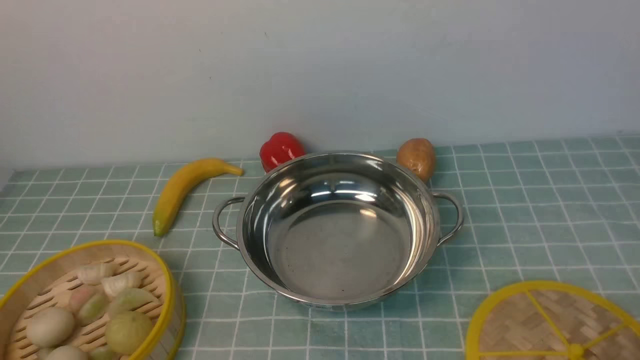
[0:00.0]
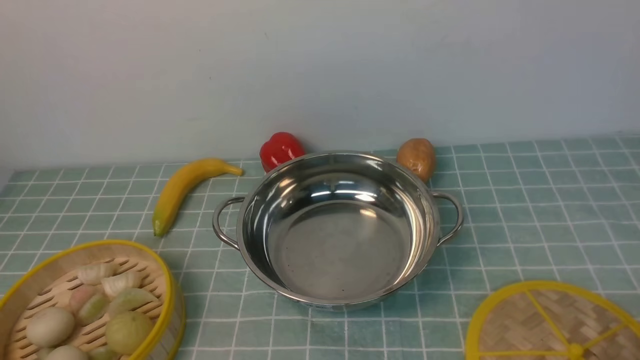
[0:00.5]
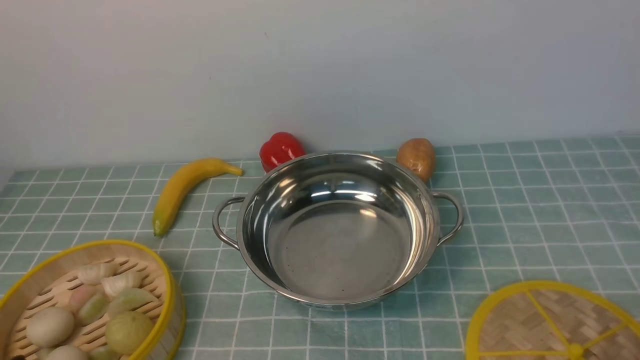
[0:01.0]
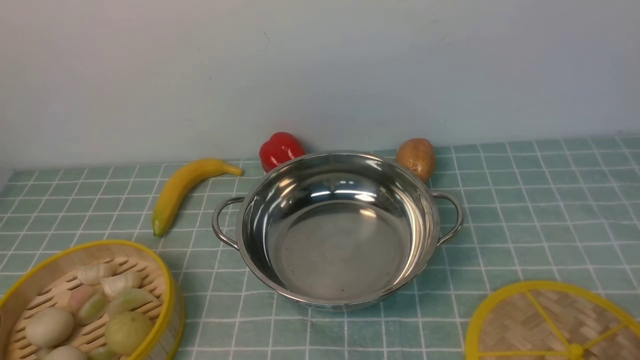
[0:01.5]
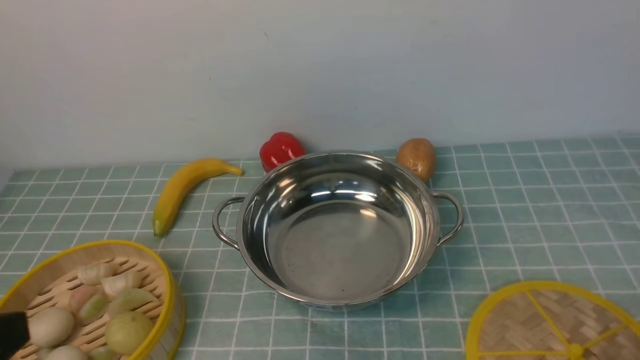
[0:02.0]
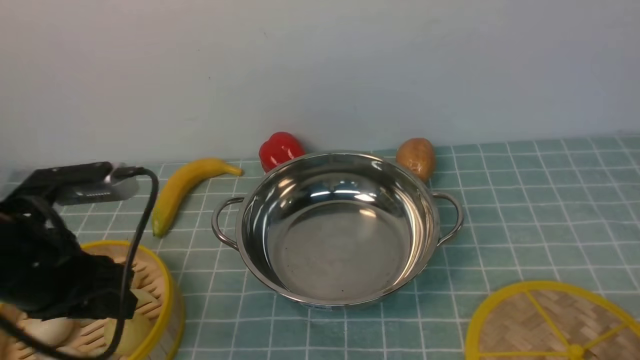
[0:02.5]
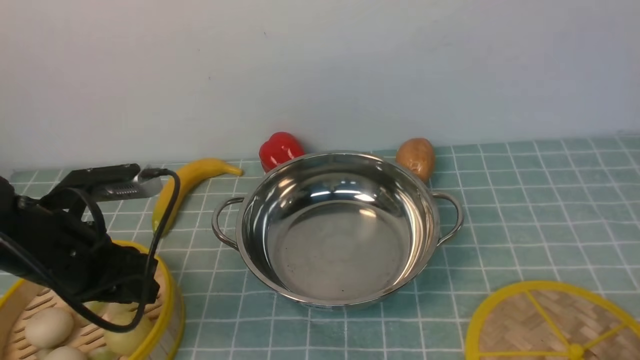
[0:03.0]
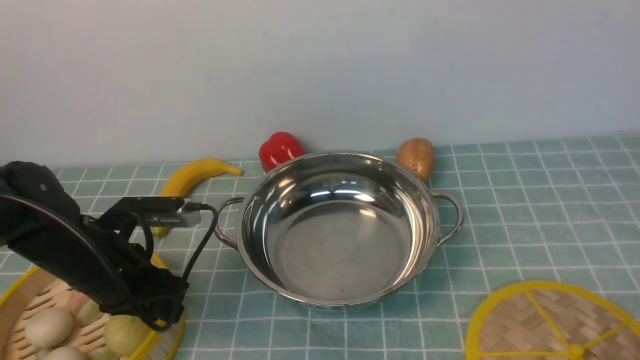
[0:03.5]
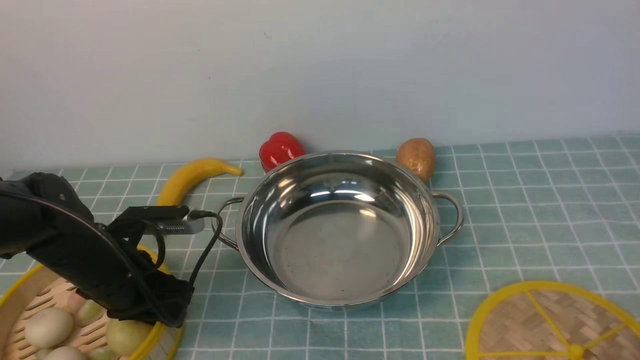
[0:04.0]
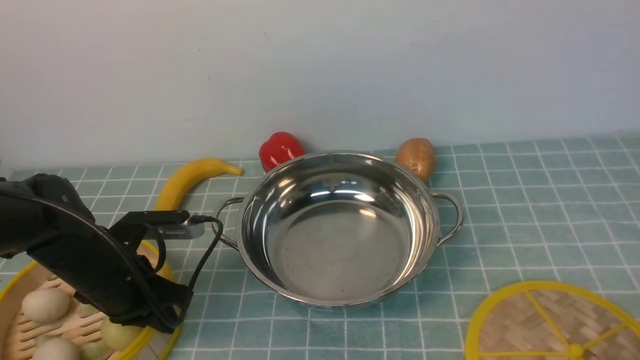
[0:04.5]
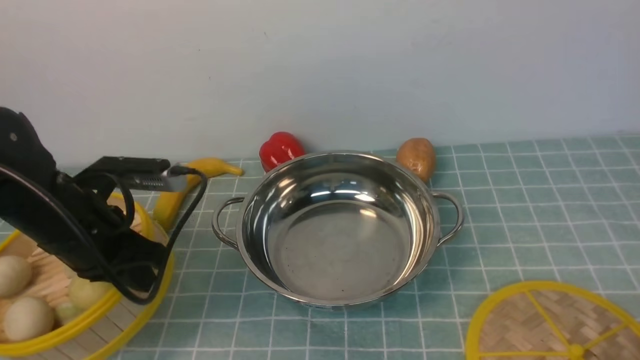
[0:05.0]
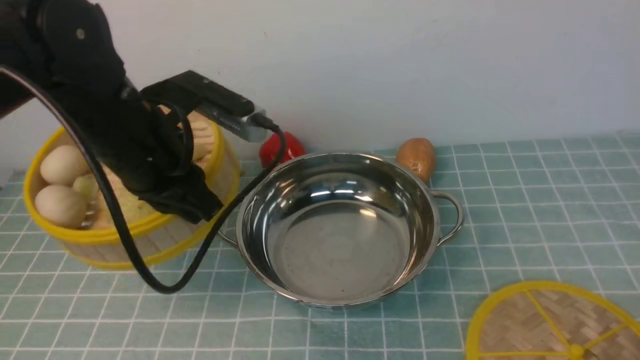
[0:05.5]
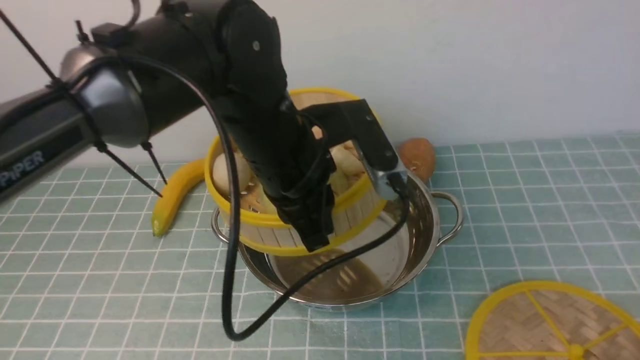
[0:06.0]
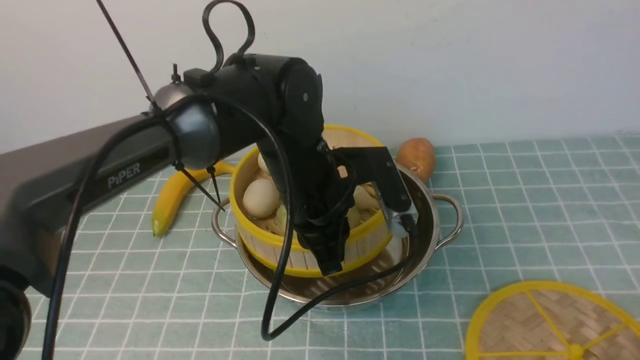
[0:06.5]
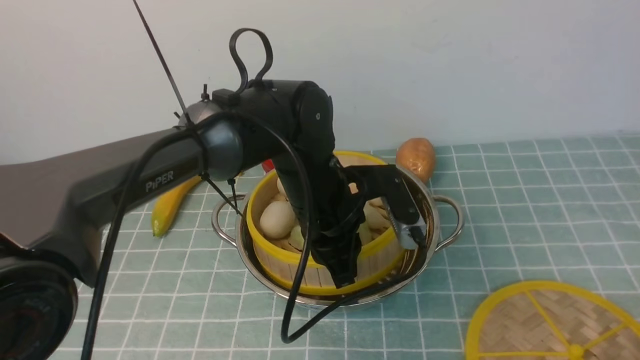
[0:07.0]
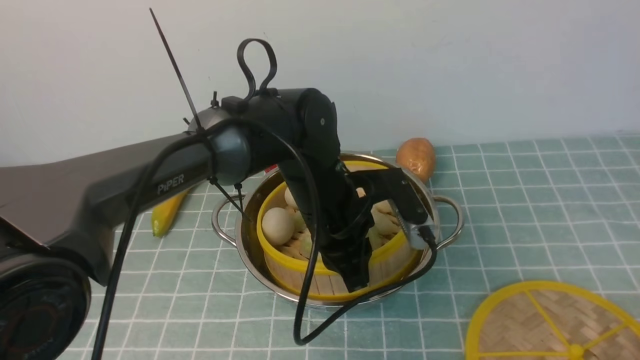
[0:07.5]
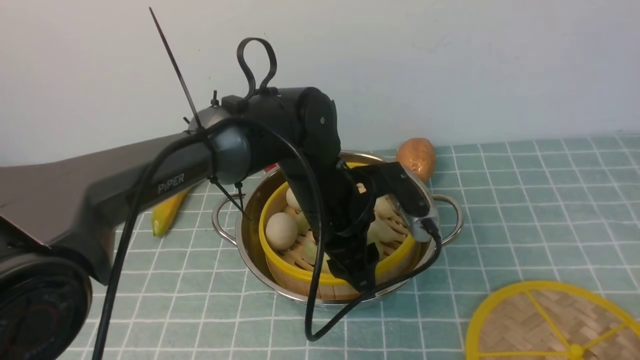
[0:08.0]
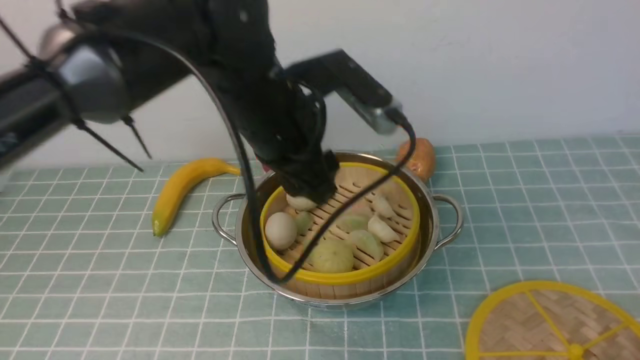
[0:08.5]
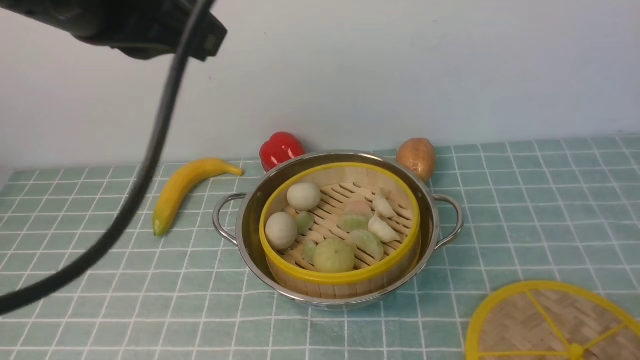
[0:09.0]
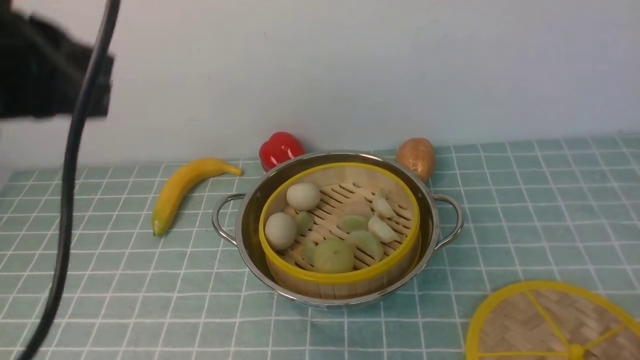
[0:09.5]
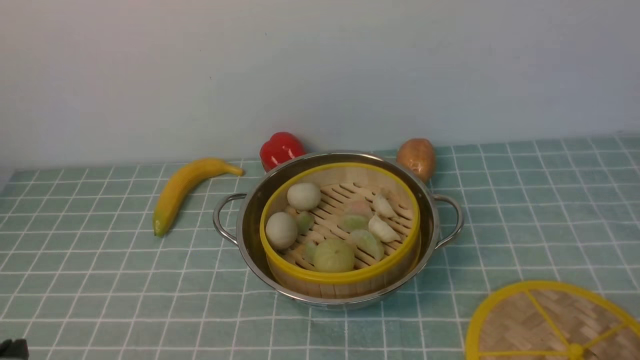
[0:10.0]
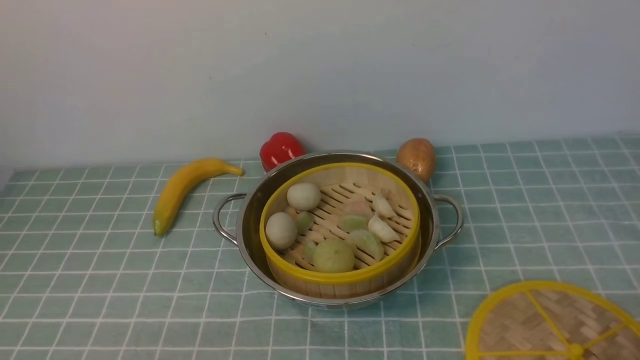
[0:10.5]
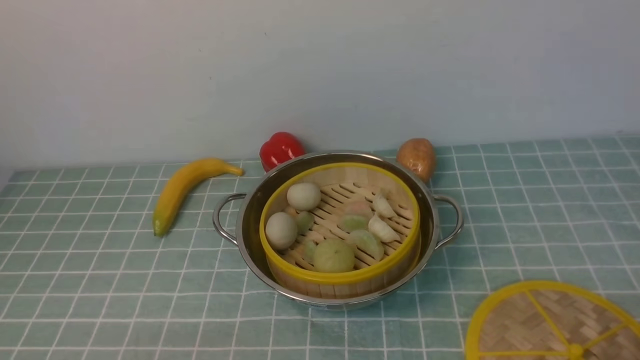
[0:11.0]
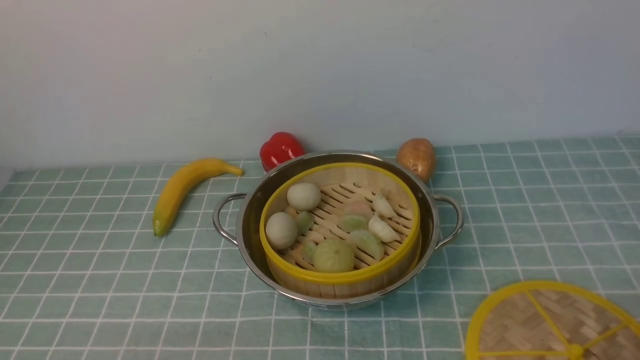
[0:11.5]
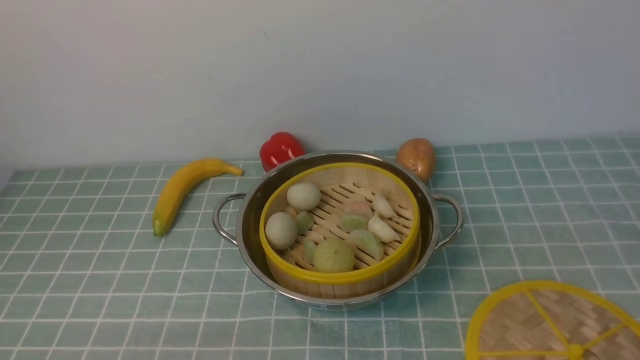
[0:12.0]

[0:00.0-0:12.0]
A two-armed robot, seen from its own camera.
Task of the whole recording: place the steamer in the pot on the blue tablecloth, and put the lid on the steamer.
Step, 0:00.0 to 0:05.0: use the left arm to lift the steamer closest to it.
Step, 0:05.5 to 0:08.5: use the left arm to put the steamer into the iron steamer pot in the middle.
0:02.0 to 0:04.0: The left gripper moves forward and downward, roughly 25 cm.
0:04.0 to 0:06.0: The left gripper heads to the right and upward, covering roughly 25 cm, and closes its fingers.
0:06.0 to 0:08.0: The left gripper moves downward, some 10 cm, and opens.
0:08.0 to 0:10.0: The left gripper shifts approximately 35 cm backward and to the left, and closes its fingers.

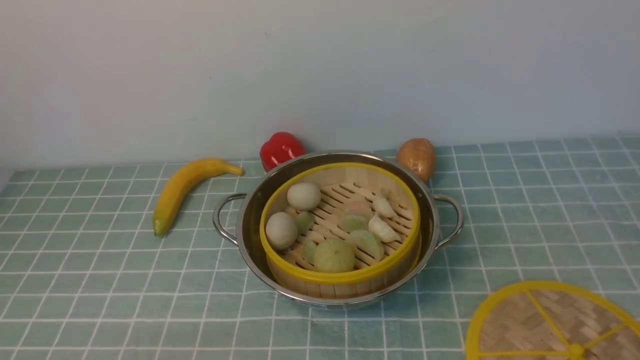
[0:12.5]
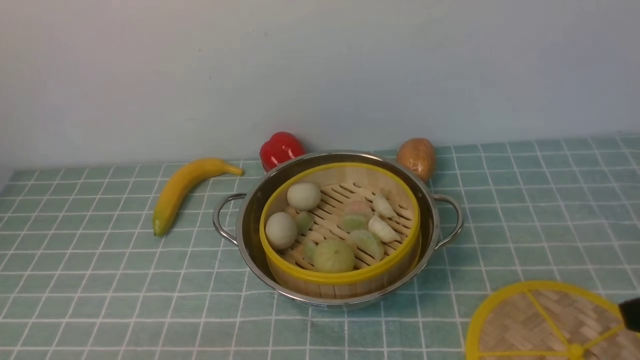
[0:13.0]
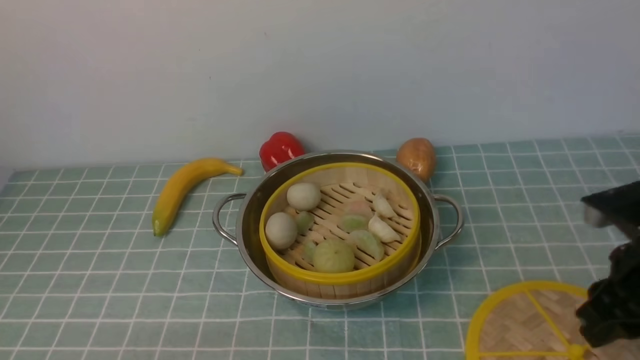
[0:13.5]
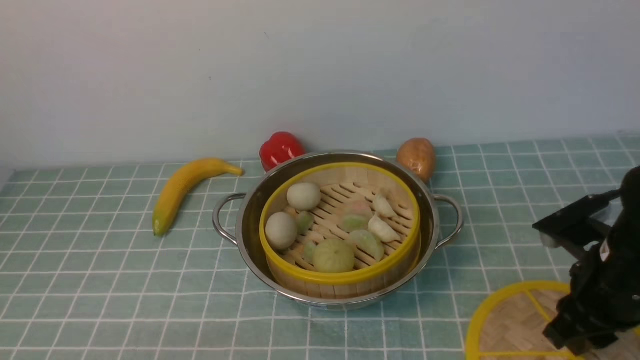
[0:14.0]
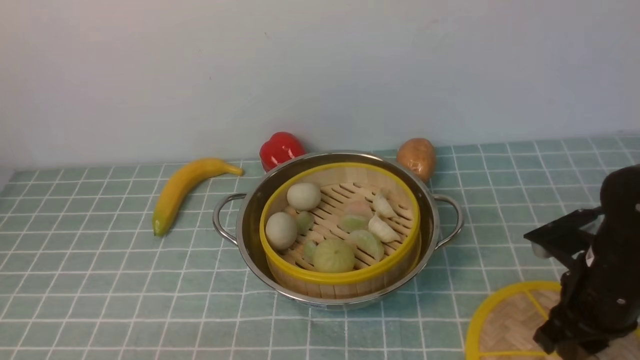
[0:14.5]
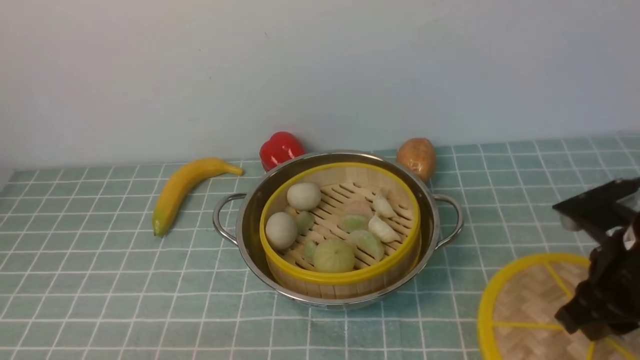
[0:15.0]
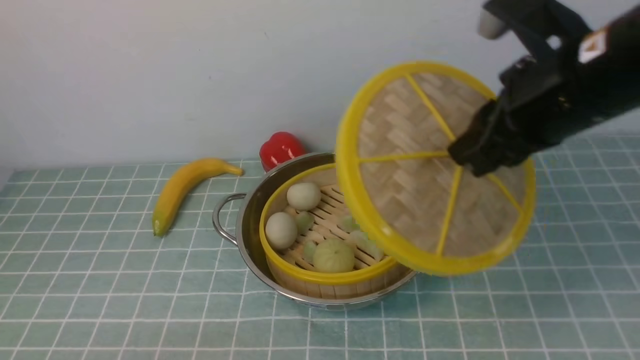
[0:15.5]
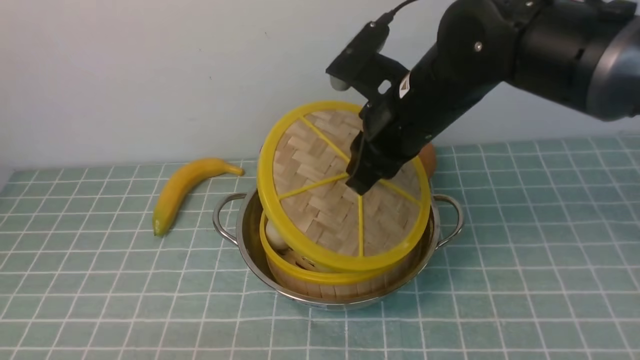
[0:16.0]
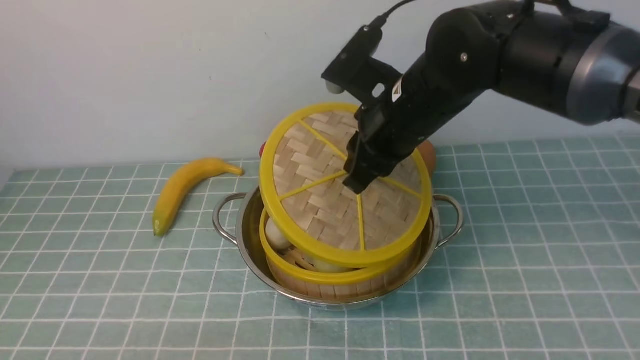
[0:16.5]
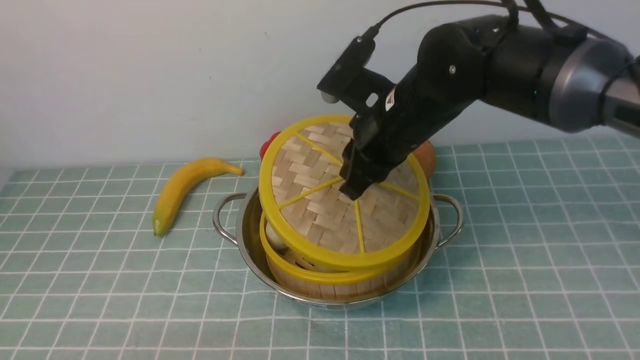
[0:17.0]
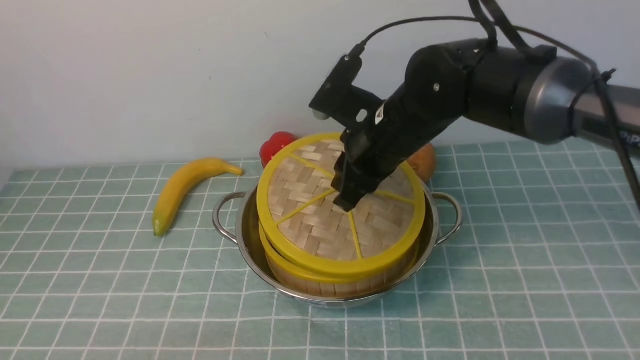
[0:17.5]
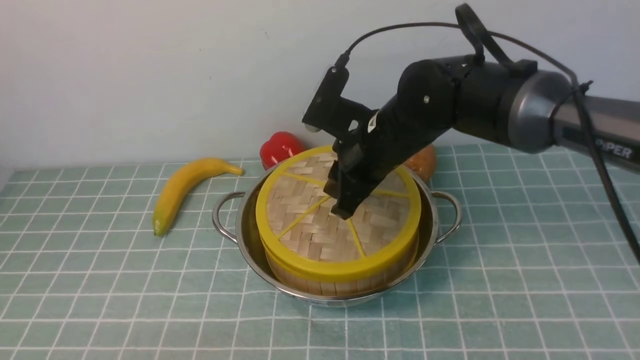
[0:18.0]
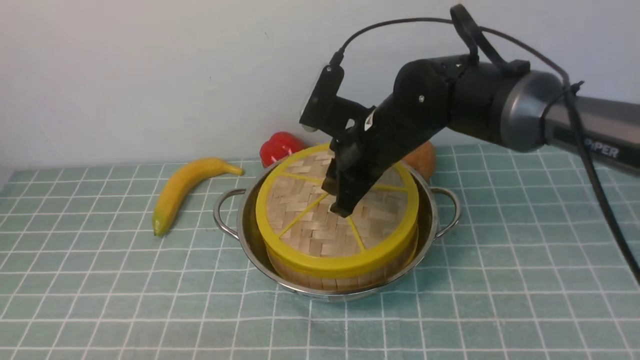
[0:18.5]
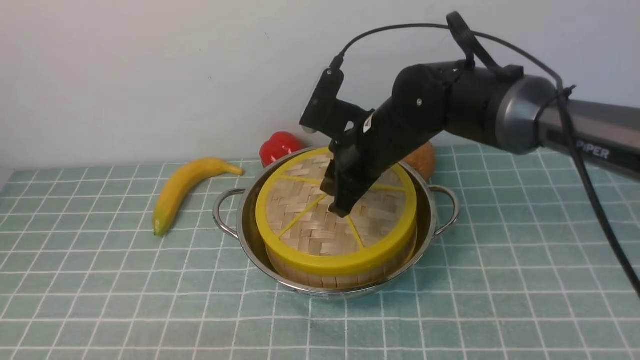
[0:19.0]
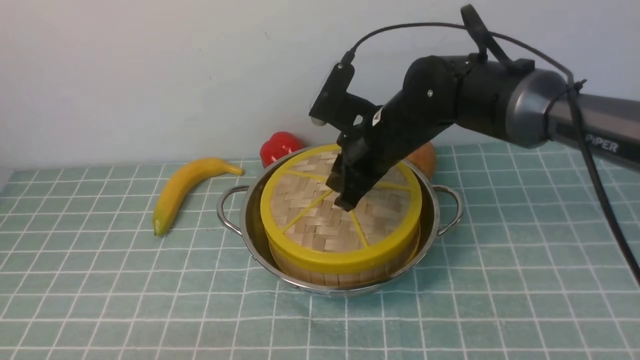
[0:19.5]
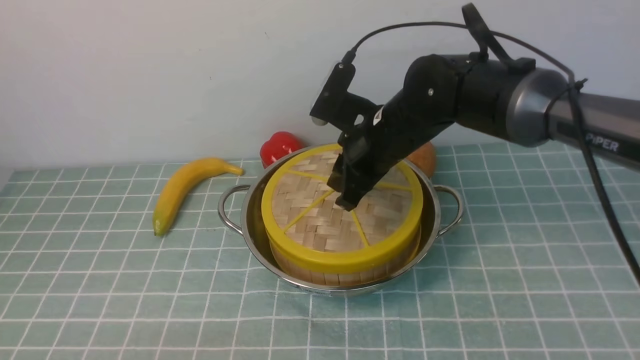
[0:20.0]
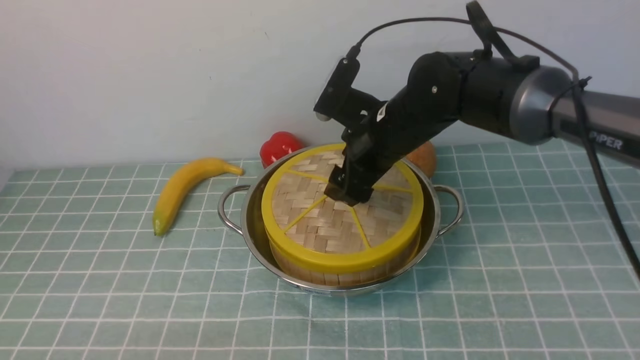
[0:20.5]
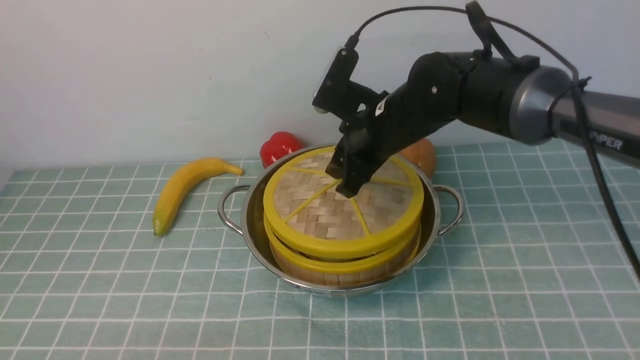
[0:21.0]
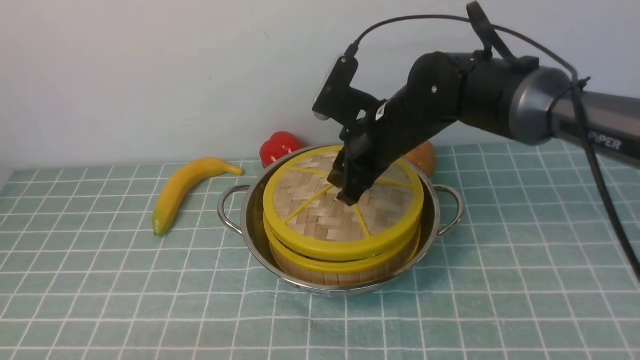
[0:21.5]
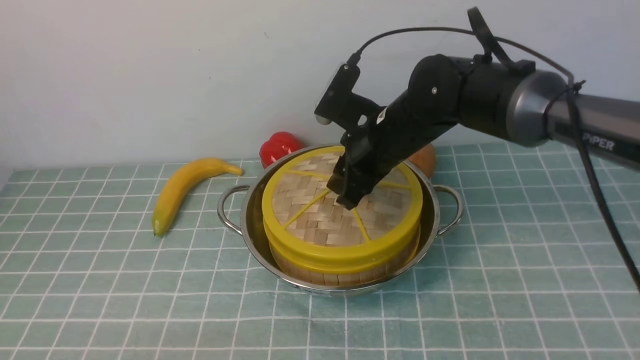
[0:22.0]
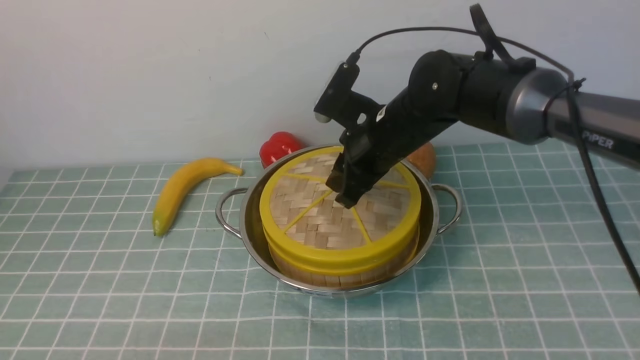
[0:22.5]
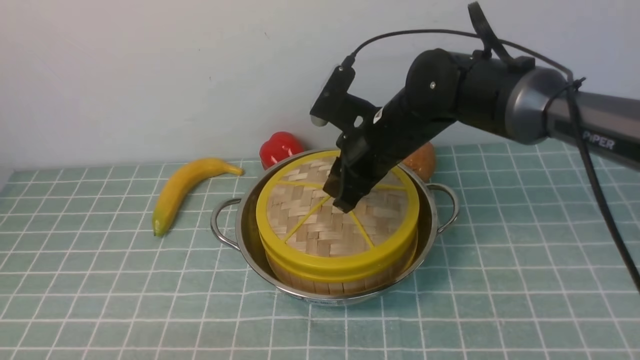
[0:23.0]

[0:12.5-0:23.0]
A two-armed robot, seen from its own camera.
Task of the whole recording: place the steamer in the pot on the blue tablecloth, and put the lid on the steamer.
Step, 0:12.5 to 0:15.0: use the right arm to lift the lid of the steamer.
0:12.5 to 0:14.5: The right gripper shifts about 25 cm forward and downward.
0:14.5 to 0:16.5: The right gripper travels to the left, upward and forward by approximately 25 cm.
0:16.5 to 0:19.0: The right gripper shifts roughly 5 cm downward.
0:19.0 to 0:21.0: The right gripper opens its fingers.
0:21.0 to 0:23.0: The right gripper closes.
